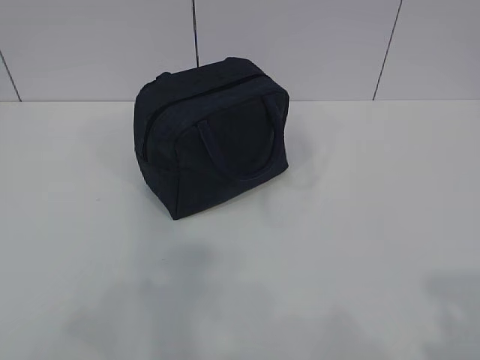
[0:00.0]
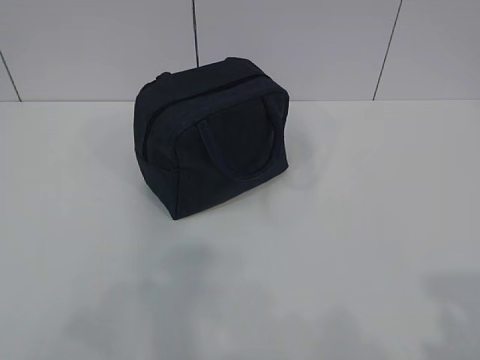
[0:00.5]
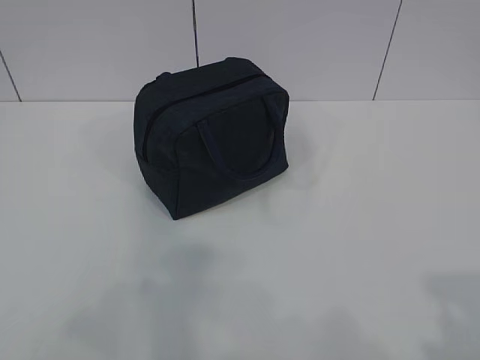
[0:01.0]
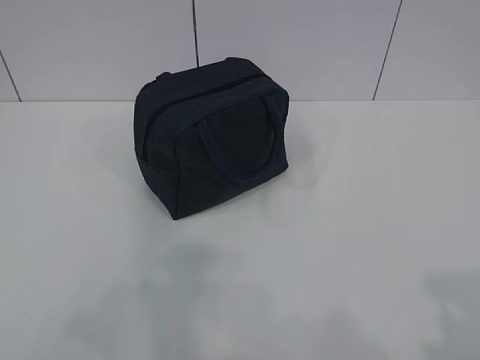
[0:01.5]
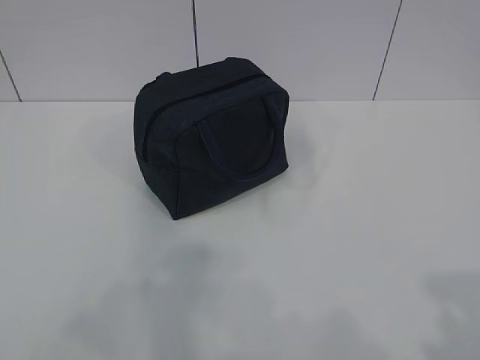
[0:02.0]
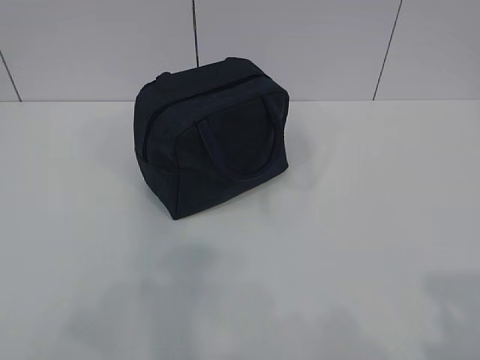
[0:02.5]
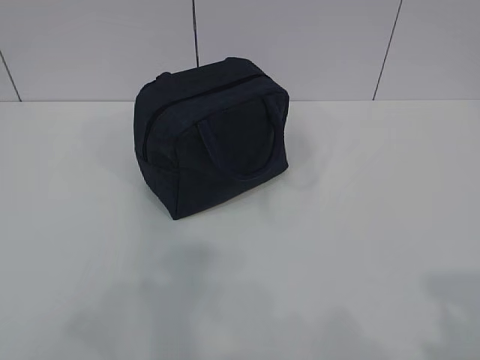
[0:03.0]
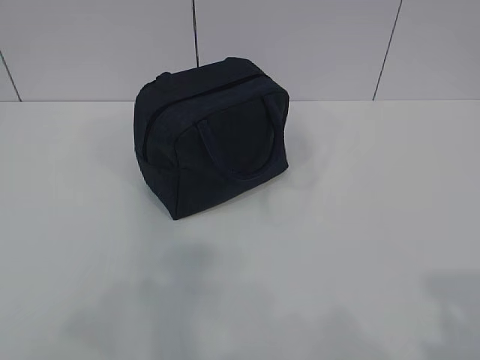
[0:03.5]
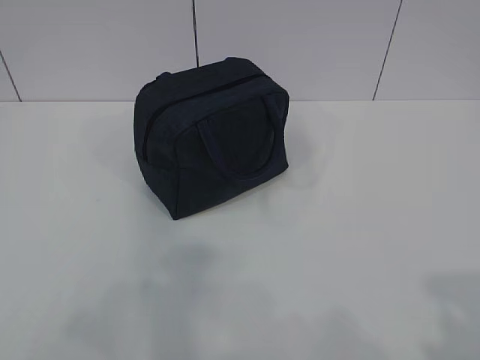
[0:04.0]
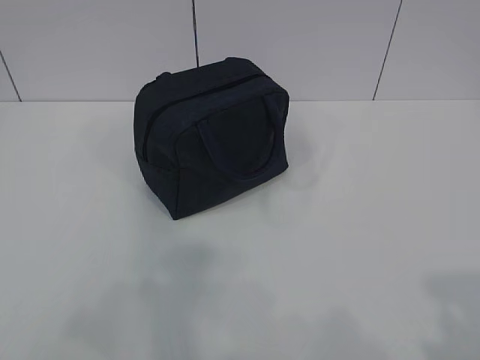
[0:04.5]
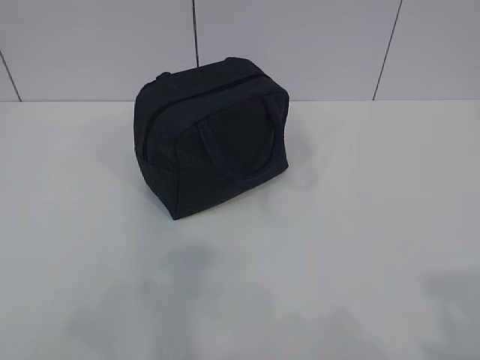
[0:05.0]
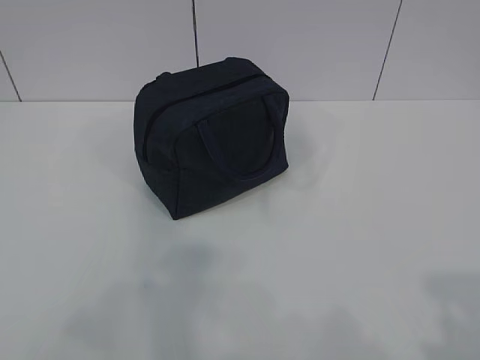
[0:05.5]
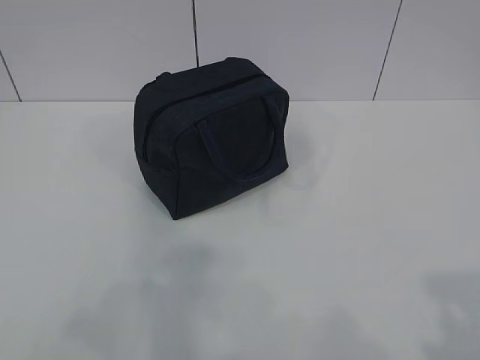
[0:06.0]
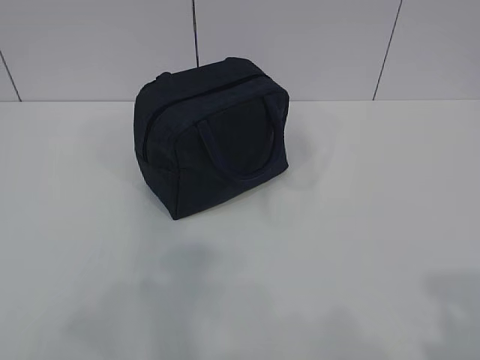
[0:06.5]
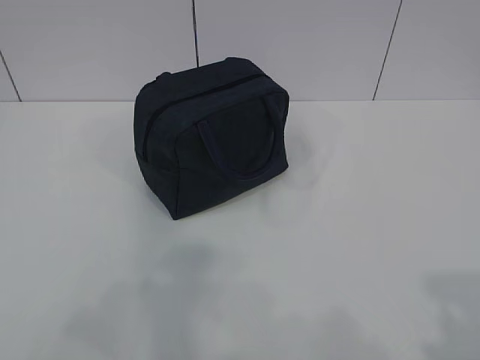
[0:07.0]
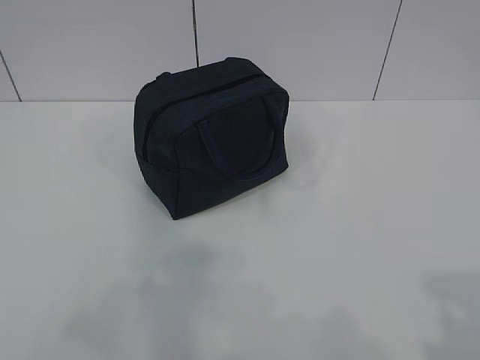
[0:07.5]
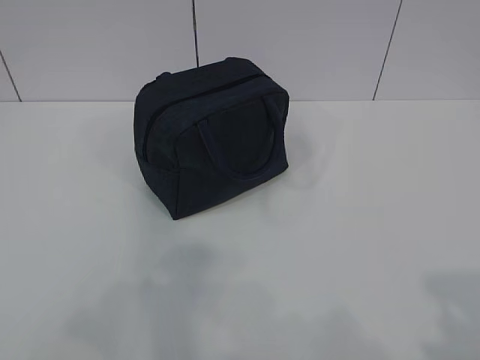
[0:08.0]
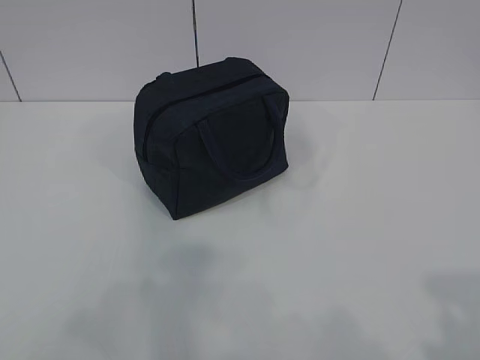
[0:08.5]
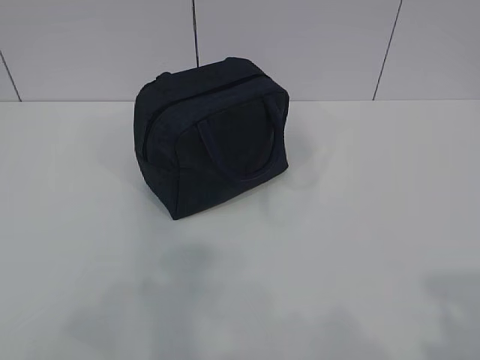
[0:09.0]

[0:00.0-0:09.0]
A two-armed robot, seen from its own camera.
0:00.0 to 0:09.0: Neither gripper changes place.

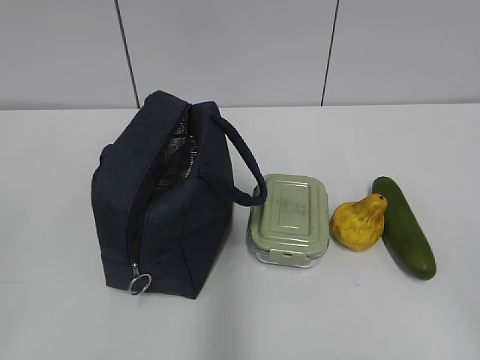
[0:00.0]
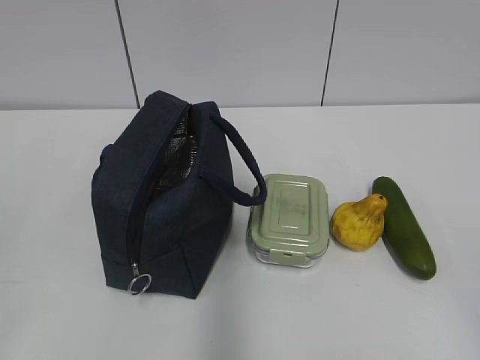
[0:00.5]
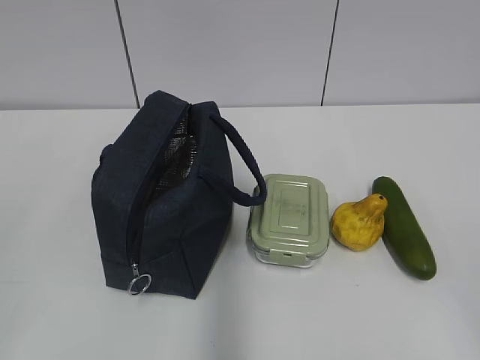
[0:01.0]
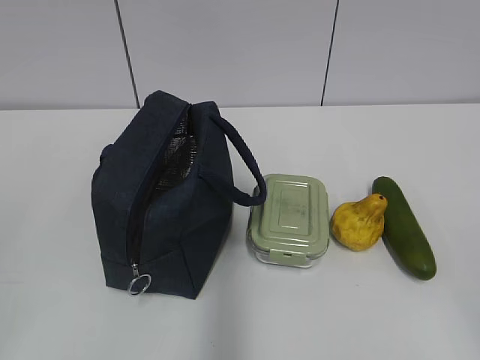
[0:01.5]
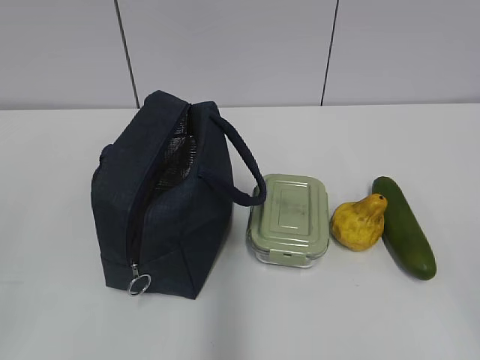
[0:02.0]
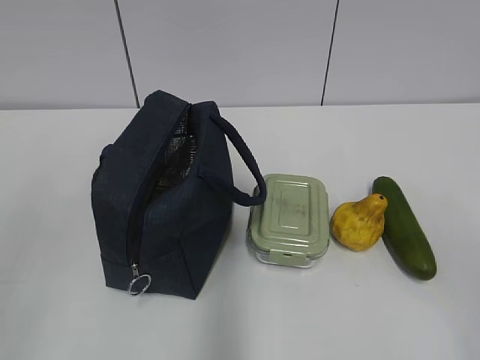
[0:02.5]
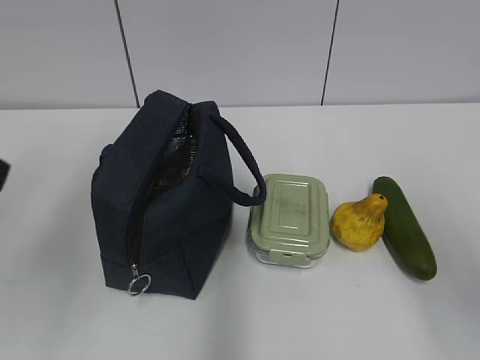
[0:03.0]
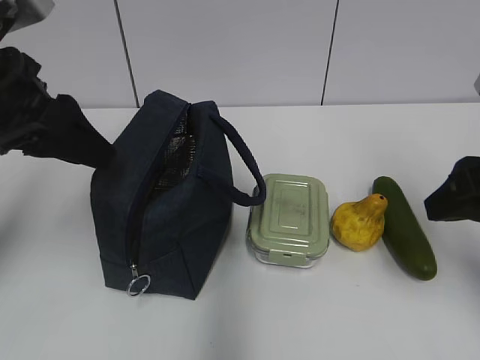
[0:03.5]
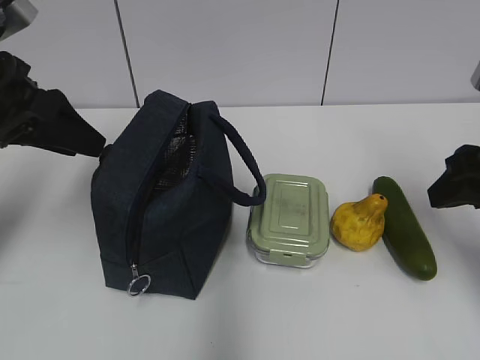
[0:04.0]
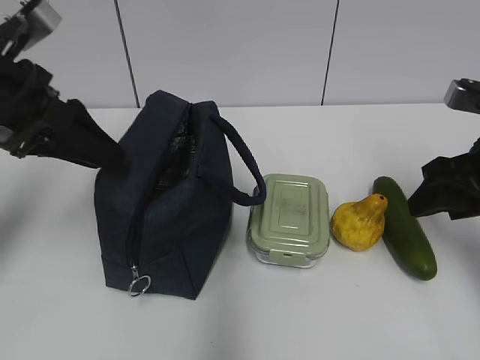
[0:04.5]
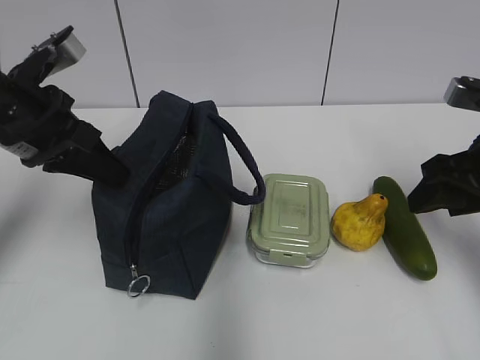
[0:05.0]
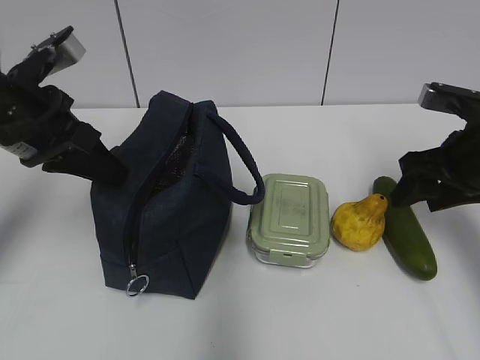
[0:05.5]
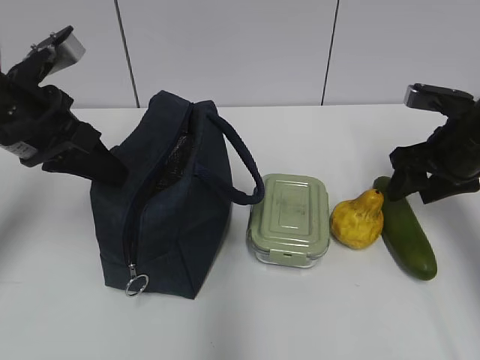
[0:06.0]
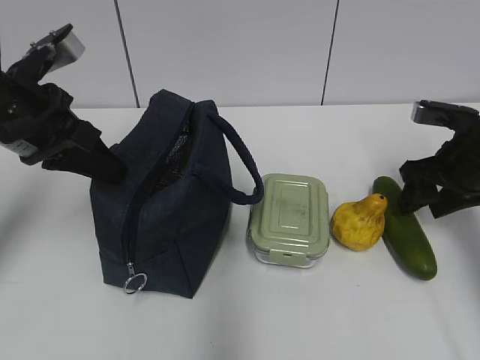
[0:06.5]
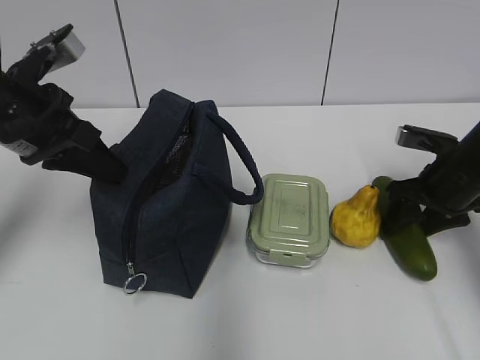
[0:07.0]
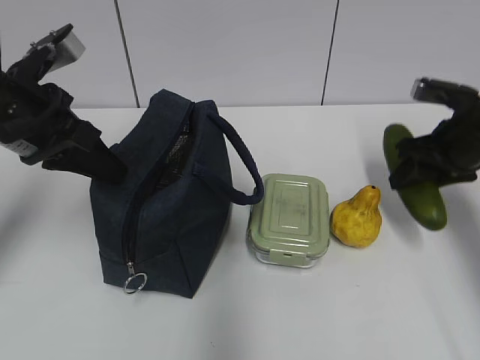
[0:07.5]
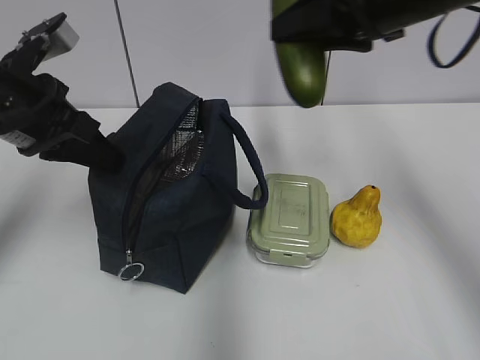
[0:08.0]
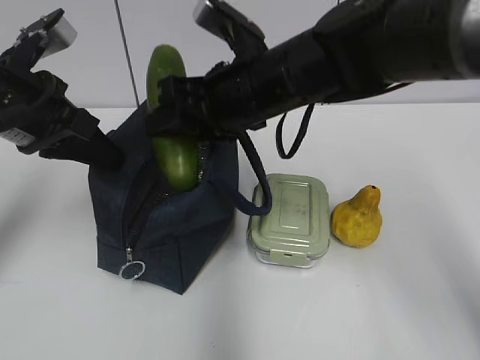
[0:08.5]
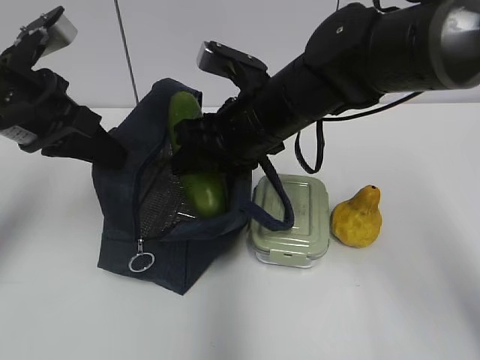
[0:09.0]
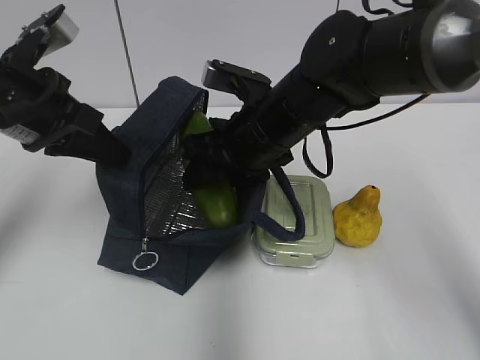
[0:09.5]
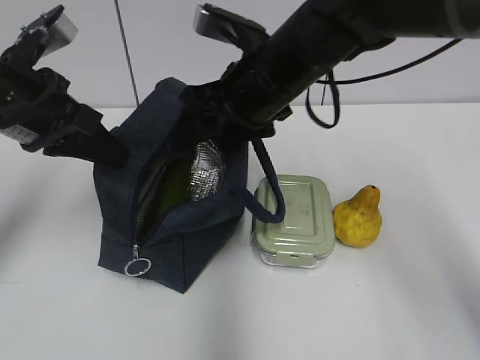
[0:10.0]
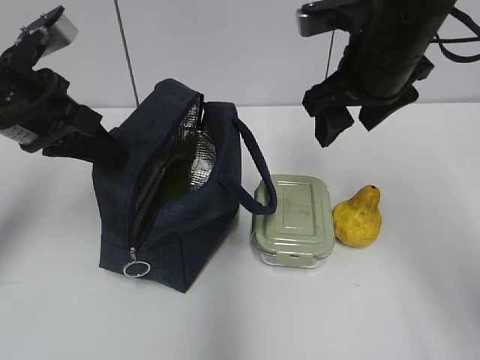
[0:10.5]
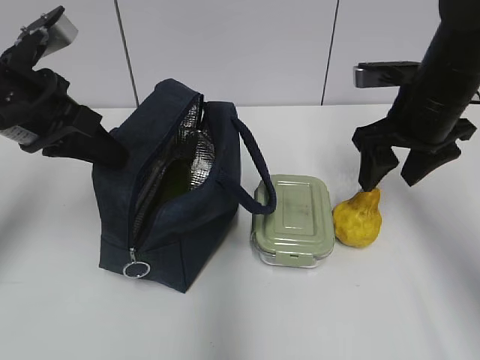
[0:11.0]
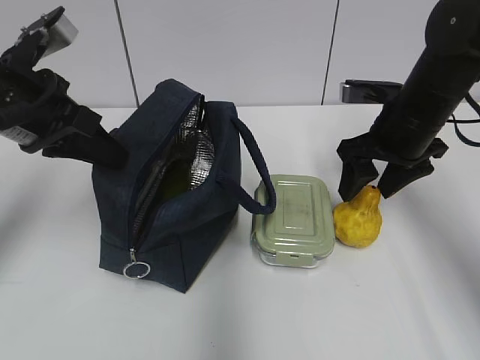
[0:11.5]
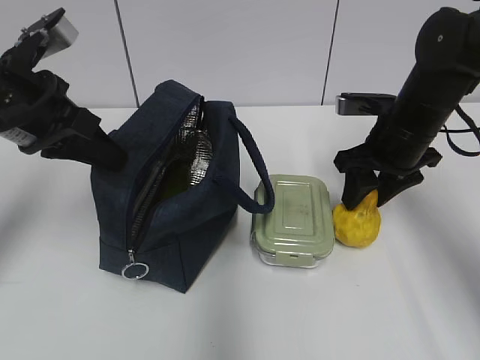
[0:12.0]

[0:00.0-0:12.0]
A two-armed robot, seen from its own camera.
Step, 0:00.0 to 0:05.0: Grab the lunch bag with your left hand.
Step, 0:05.5 to 0:07.0: Grab the cucumber with your right hand.
Step, 0:07.5 to 0:09.5: Place it into the bag with your right hand.
0:02.0 to 0:04.0: Both grippers move forward, roughly 30 cm.
0:04.0 to 0:06.0: The right gripper is displaced forward and downward by some 15 cm. Meanwhile the left gripper closes.
0:06.0 to 0:08.0: The right gripper moves upward and to the left, approximately 20 cm.
0:08.0 to 0:10.0: The right gripper heads to the left and downward, covering approximately 15 cm, and opens up.
0:10.0 to 0:12.0: The right gripper is displaced to the right and downward by approximately 20 cm.

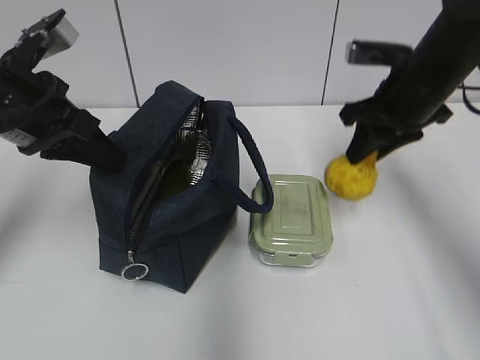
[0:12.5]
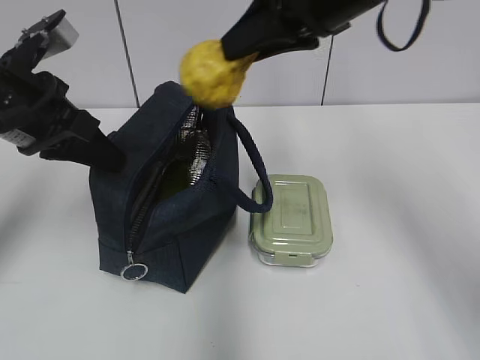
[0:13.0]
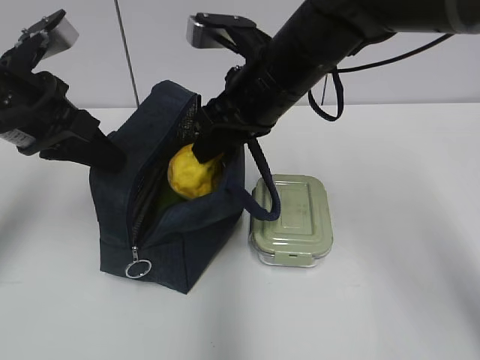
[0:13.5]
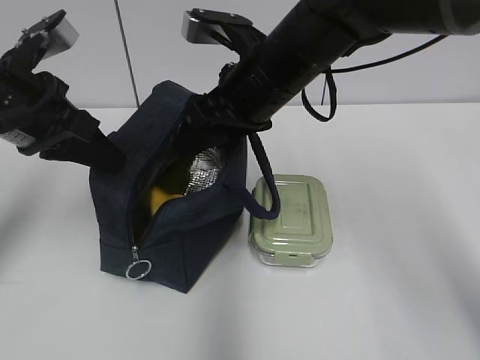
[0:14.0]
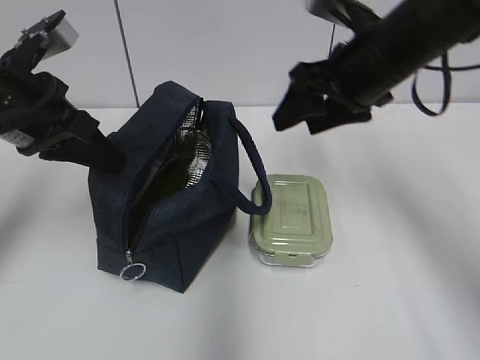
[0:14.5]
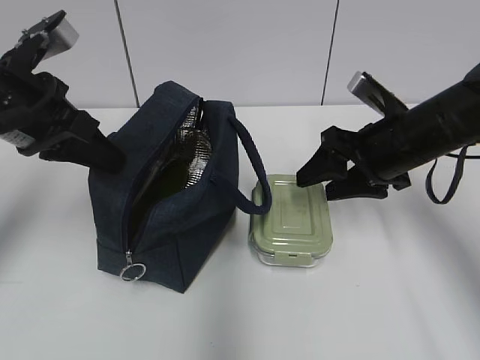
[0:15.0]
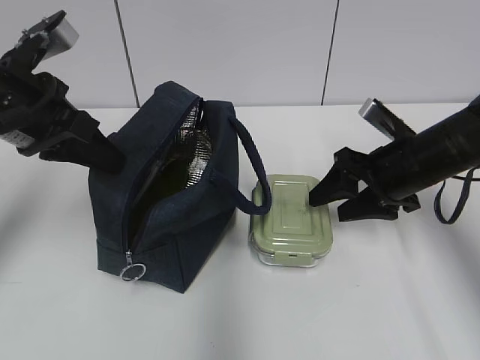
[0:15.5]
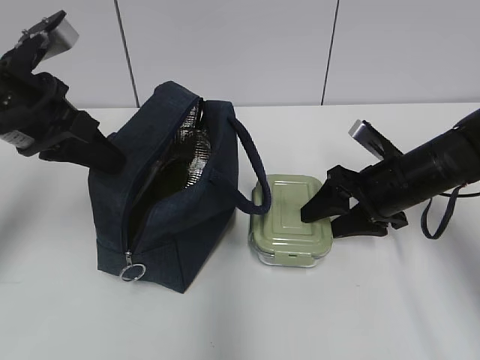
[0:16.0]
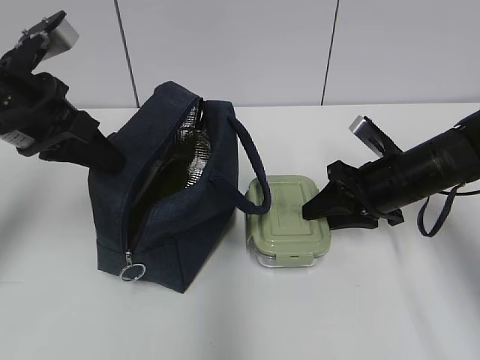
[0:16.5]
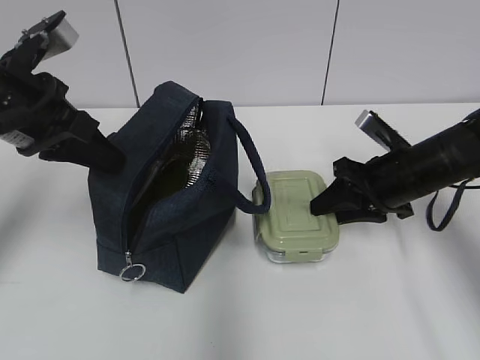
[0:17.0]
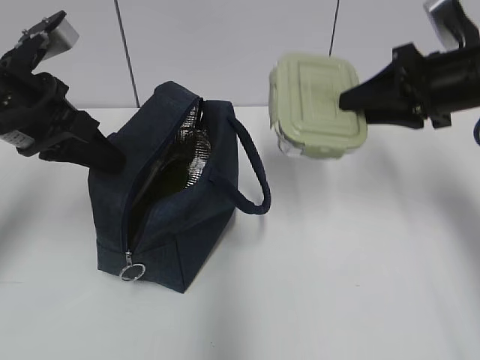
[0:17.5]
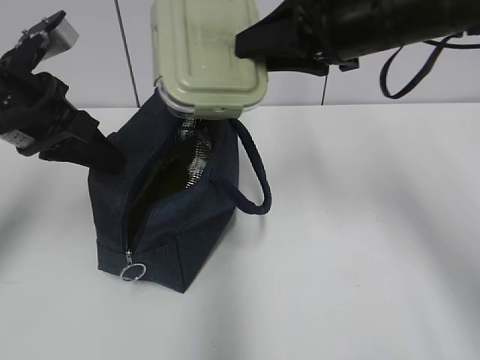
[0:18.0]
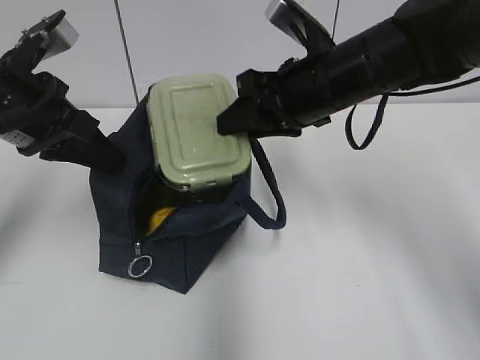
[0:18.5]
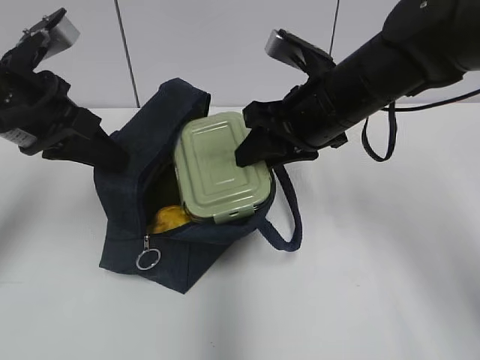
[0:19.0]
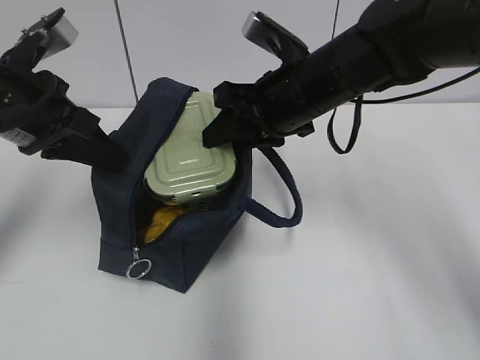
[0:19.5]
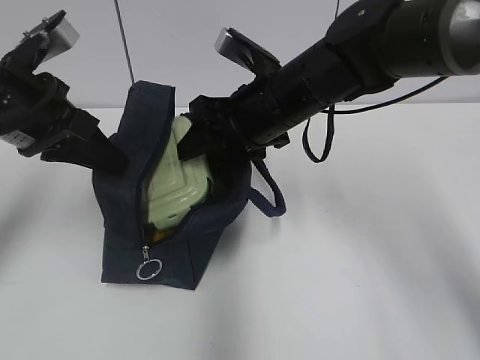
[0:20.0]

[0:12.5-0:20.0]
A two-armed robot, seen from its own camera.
Step, 0:12.5 to 0:14.0: Place it into the bag with your right hand.
Step, 0:14.5 to 0:17.0: Grab the lunch box with your right hand.
0:12.5 to 0:14.5: The right gripper moves some 15 cm to the left and comes back, and opens its fingers.
0:14.5 to 0:16.5: The right gripper heads downward, covering some 15 cm, and closes.
0:16.5 to 0:18.0: The right gripper goes roughly 20 cm upward.
0:18.0 to 0:20.0: The right gripper shifts approximately 10 cm downward and to the left.
